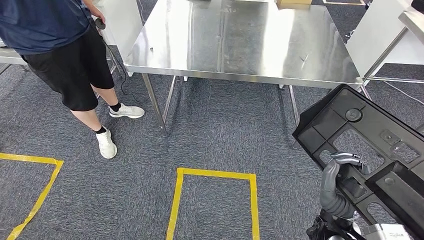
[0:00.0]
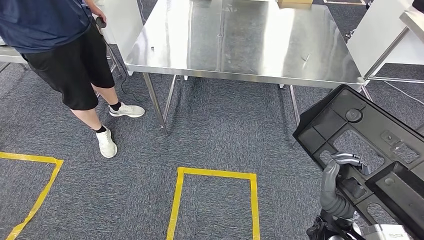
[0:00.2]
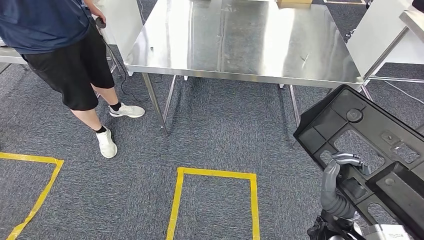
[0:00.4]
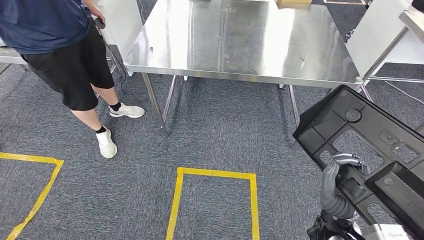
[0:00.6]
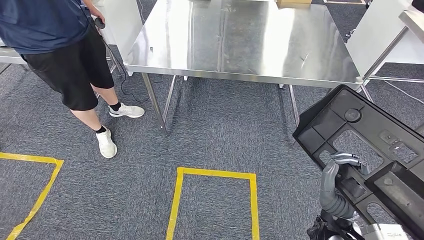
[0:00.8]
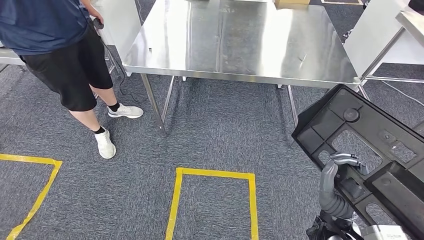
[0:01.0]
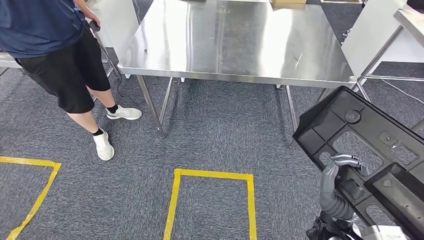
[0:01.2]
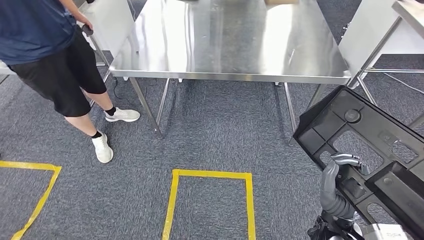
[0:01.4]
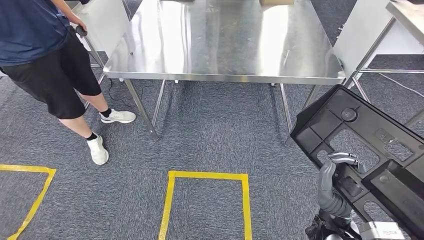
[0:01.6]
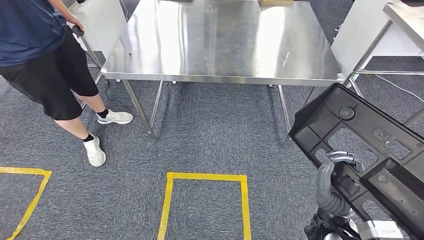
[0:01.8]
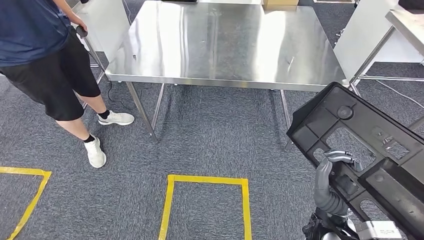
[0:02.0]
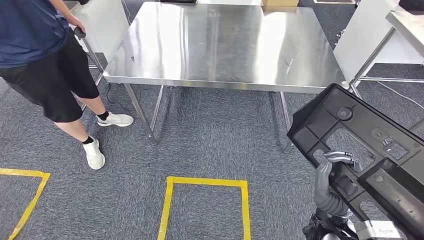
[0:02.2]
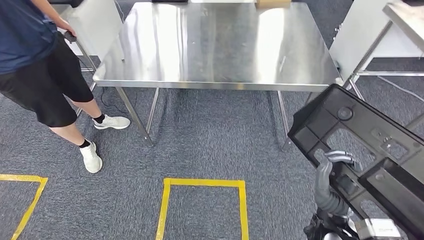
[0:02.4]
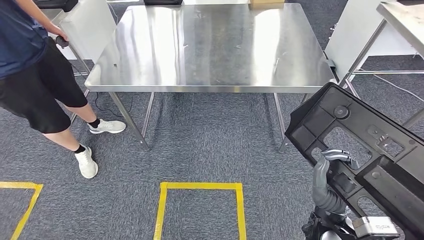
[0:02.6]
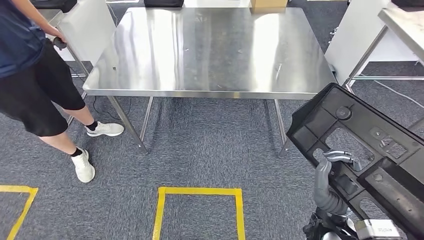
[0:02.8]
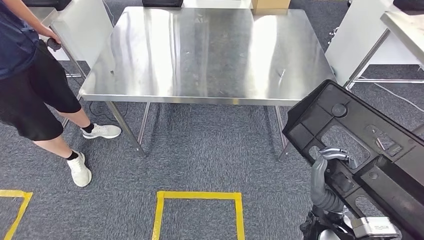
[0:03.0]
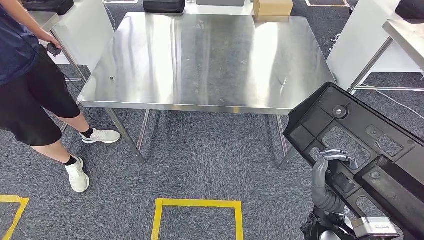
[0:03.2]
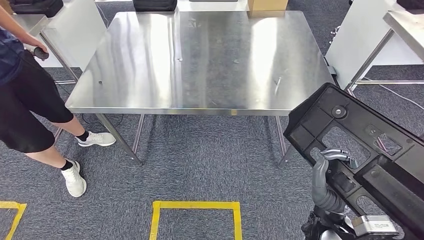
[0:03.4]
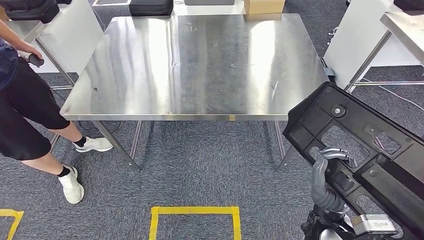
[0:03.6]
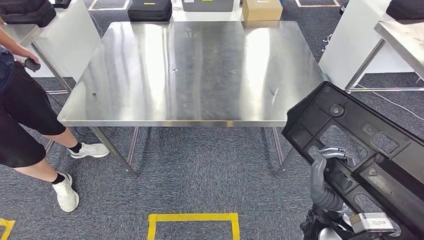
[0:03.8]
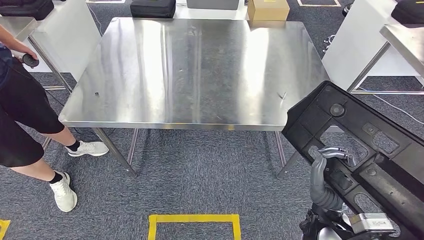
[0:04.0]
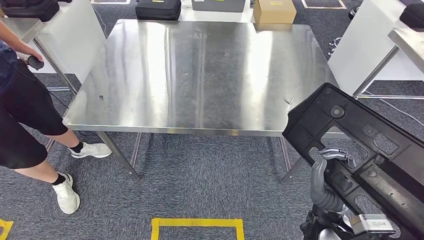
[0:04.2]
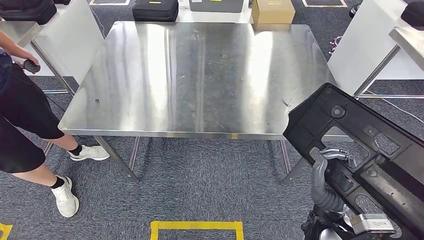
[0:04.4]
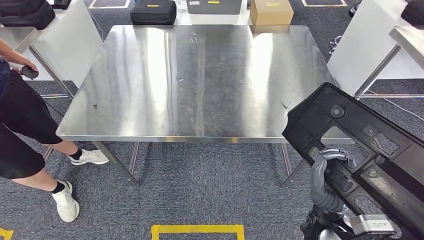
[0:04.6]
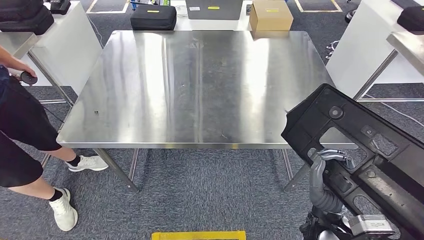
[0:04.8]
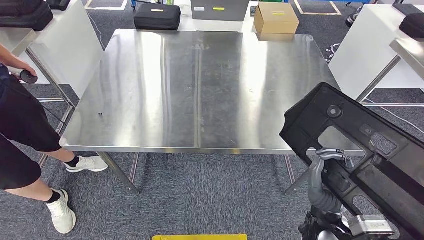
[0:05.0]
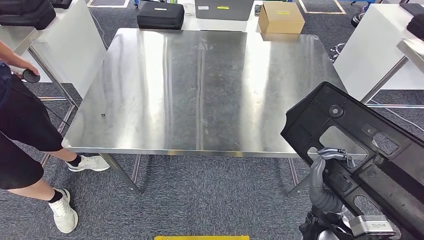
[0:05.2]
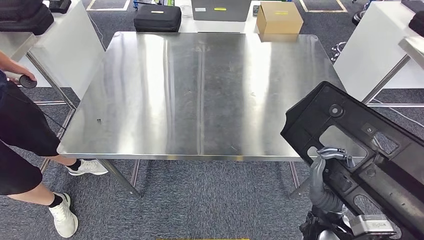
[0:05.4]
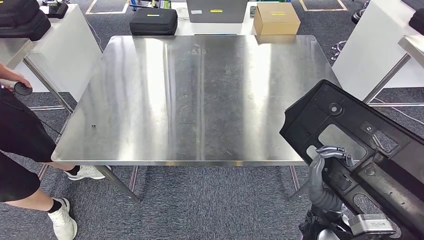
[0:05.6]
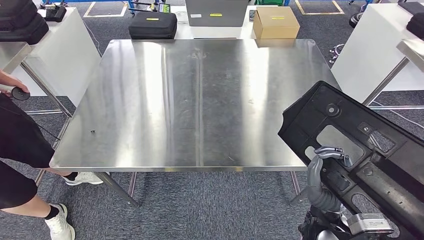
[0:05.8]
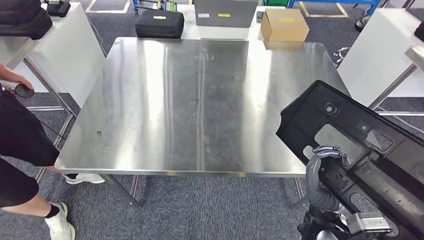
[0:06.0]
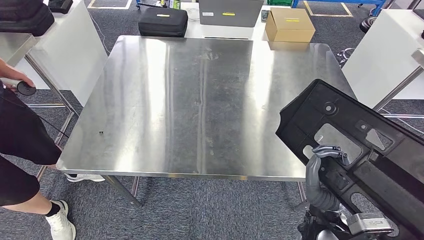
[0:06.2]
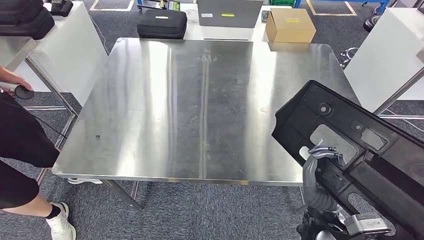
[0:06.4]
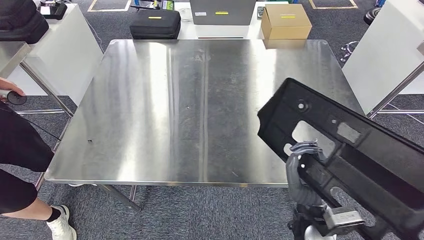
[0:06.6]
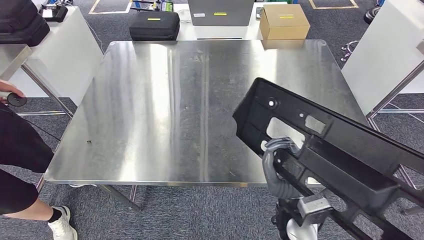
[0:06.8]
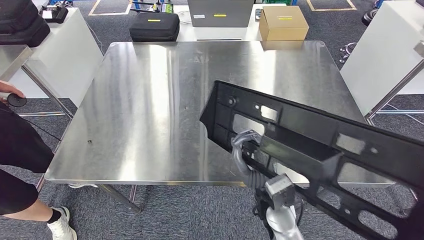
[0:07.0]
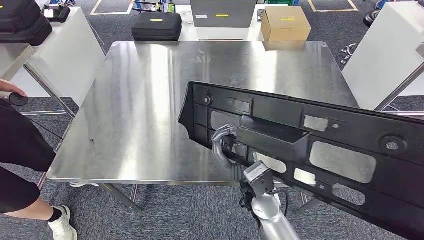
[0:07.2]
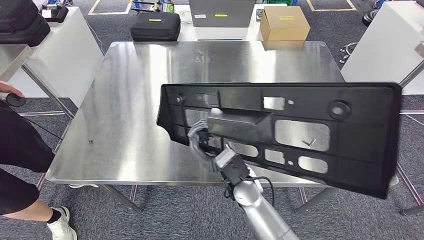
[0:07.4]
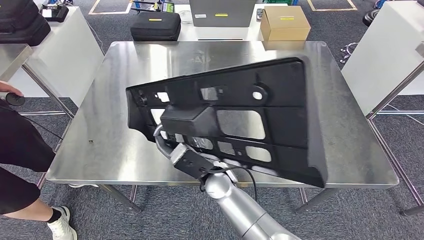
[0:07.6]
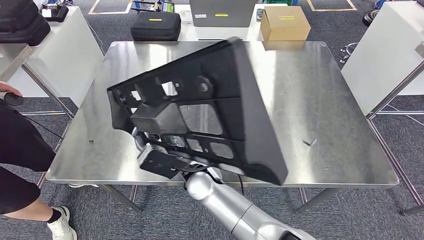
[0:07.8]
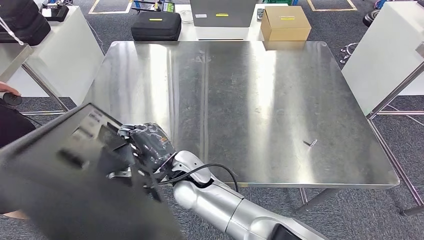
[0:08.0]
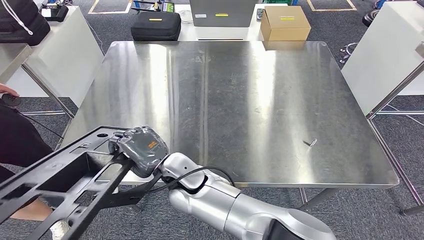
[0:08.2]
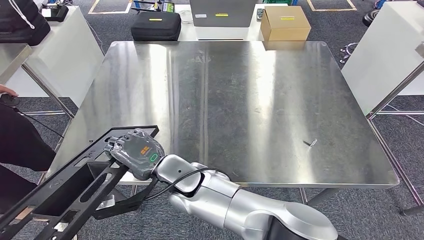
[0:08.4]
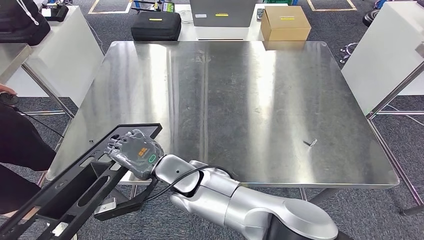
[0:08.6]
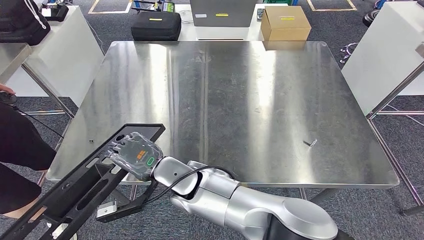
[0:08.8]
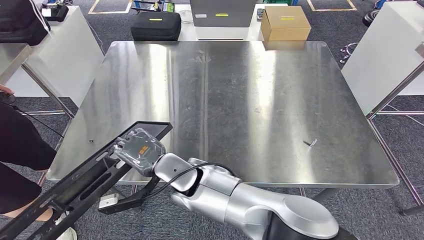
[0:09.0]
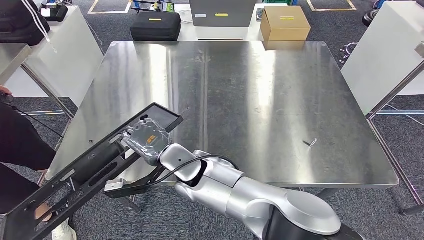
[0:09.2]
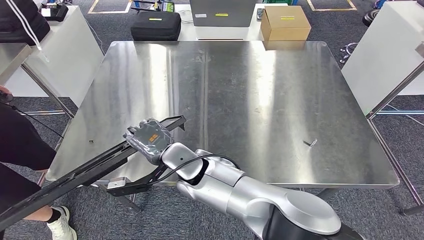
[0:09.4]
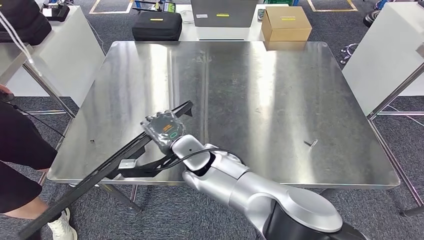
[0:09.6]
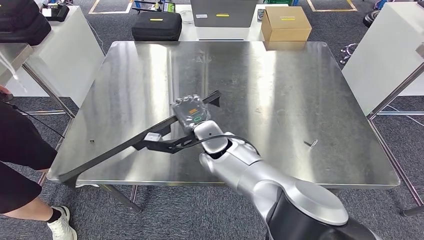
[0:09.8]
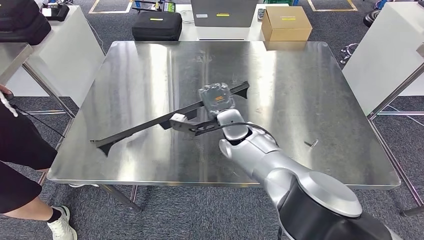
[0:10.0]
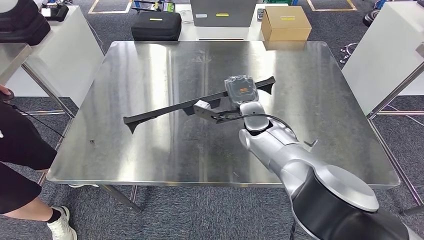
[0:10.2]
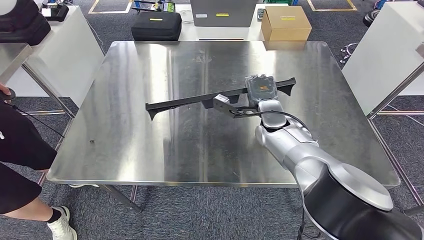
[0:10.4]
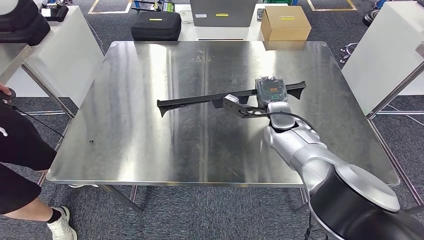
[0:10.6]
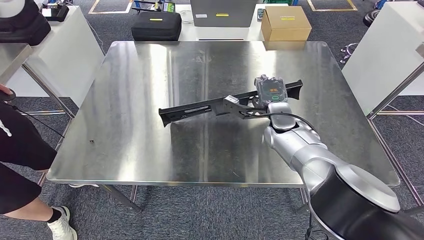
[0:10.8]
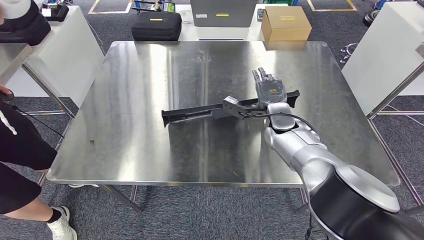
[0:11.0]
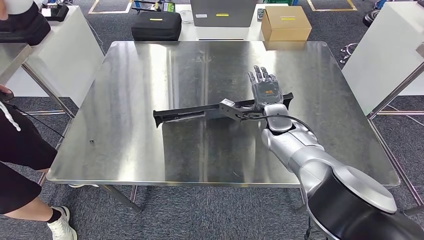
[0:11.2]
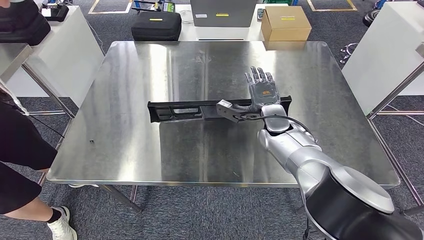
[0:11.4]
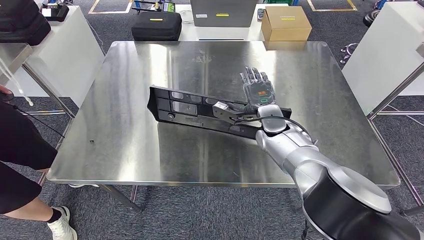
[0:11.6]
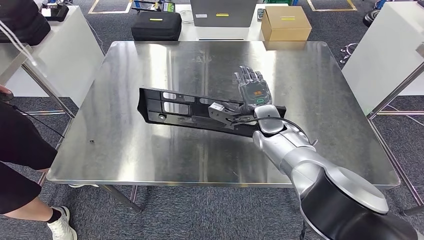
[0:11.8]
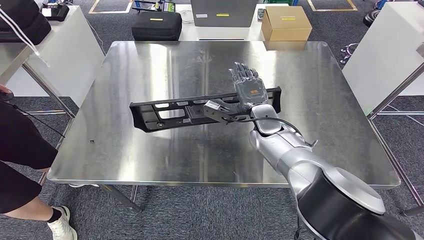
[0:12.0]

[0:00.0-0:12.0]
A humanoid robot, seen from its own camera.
0:10.4 to 0:12.0: The hands stay close to where they were, moving slightly.

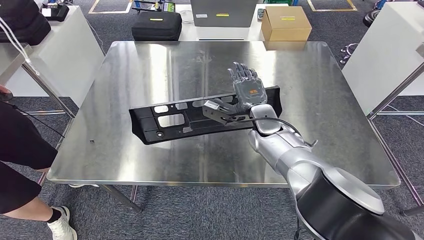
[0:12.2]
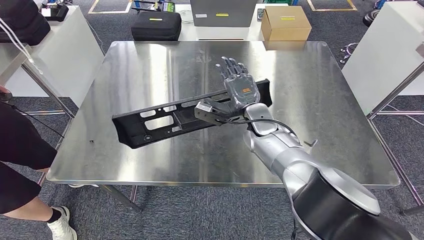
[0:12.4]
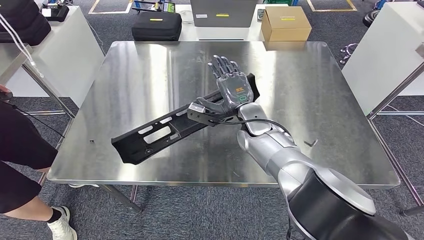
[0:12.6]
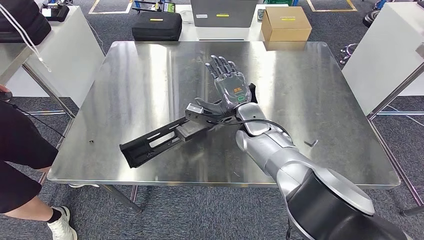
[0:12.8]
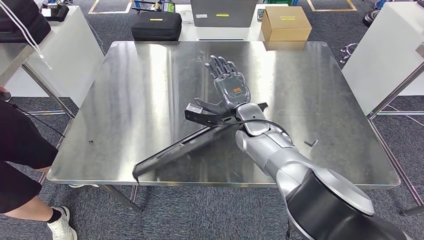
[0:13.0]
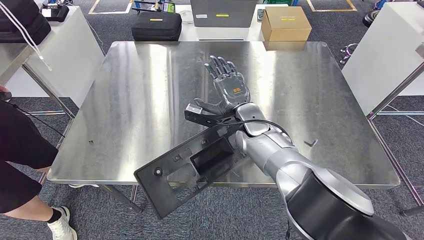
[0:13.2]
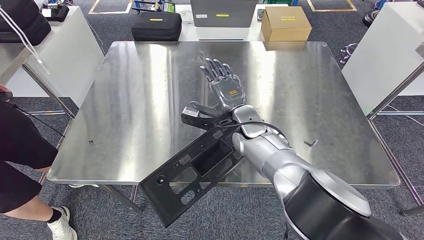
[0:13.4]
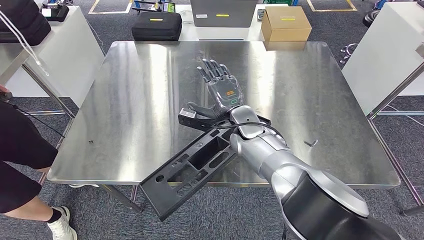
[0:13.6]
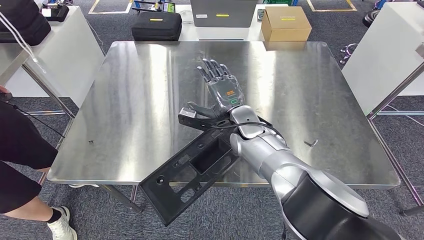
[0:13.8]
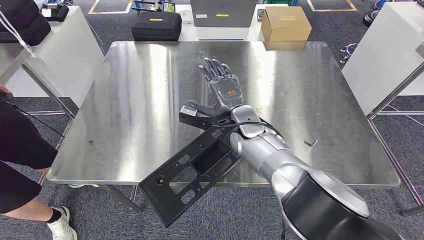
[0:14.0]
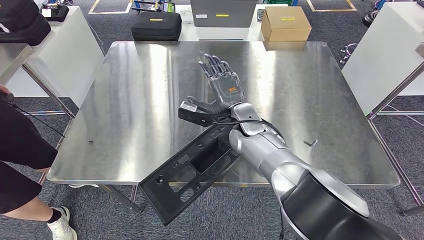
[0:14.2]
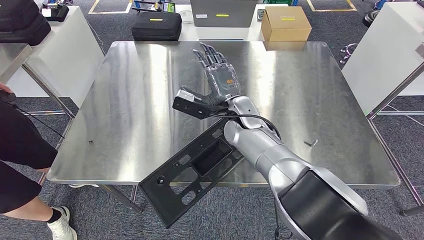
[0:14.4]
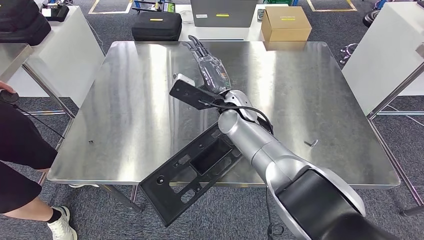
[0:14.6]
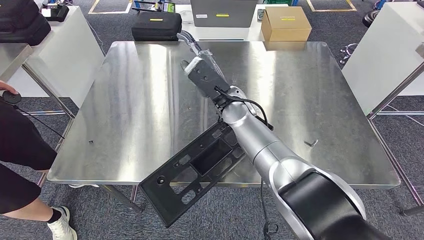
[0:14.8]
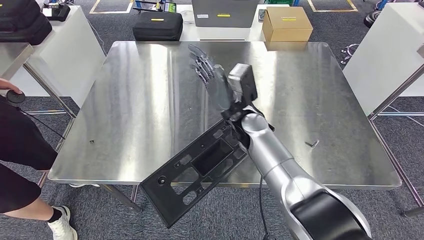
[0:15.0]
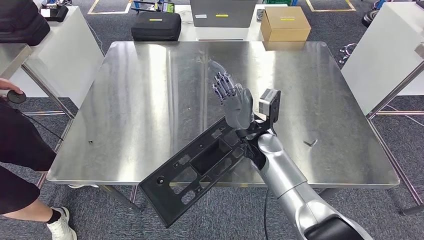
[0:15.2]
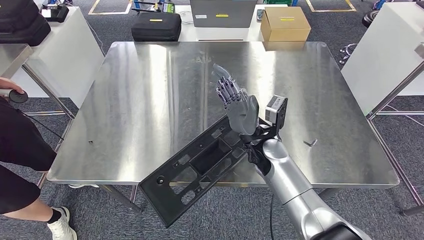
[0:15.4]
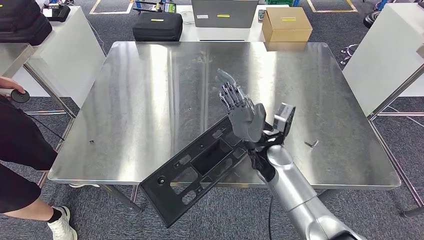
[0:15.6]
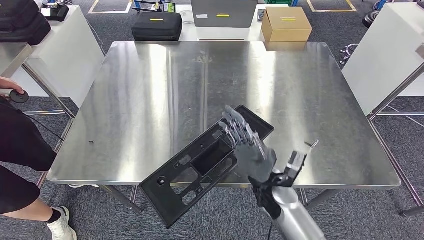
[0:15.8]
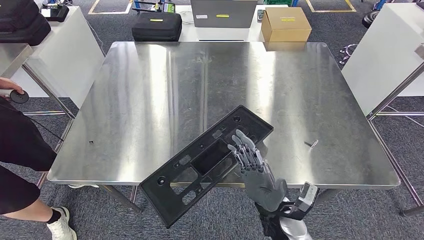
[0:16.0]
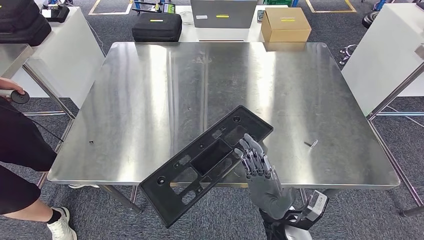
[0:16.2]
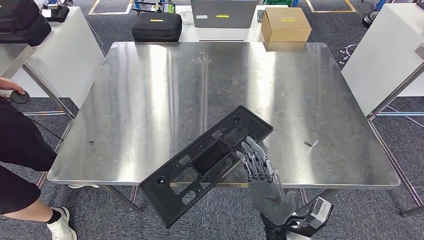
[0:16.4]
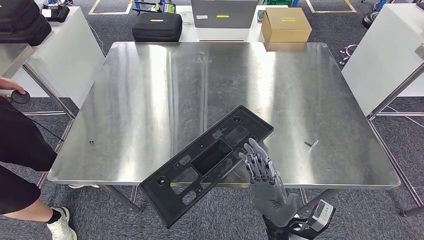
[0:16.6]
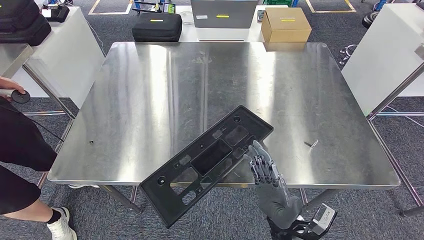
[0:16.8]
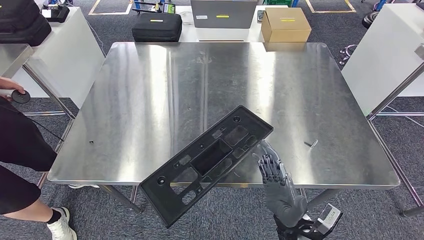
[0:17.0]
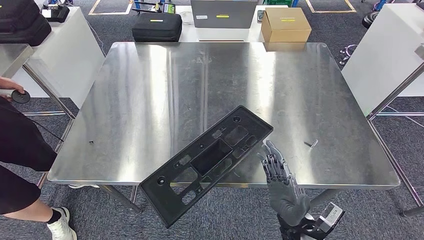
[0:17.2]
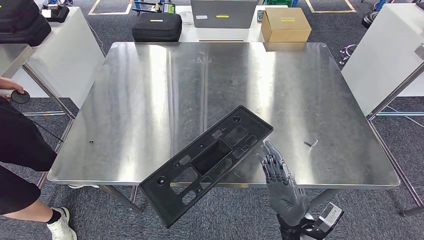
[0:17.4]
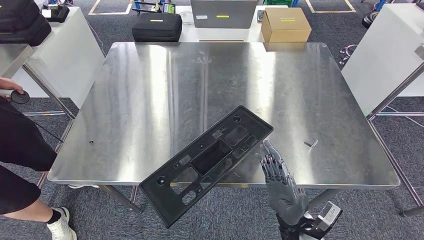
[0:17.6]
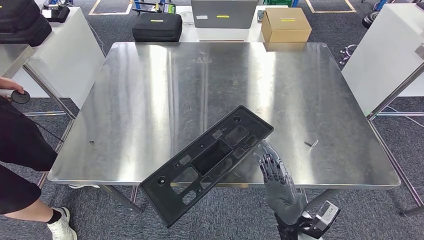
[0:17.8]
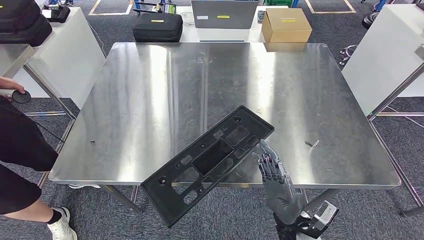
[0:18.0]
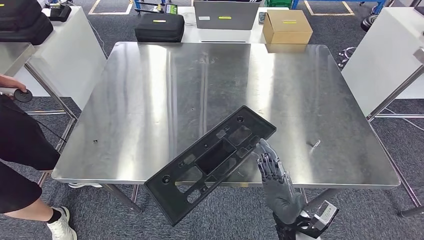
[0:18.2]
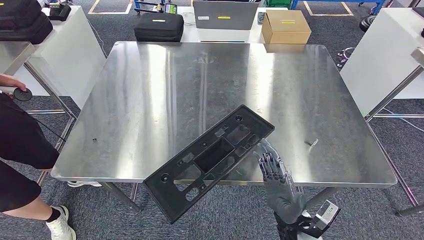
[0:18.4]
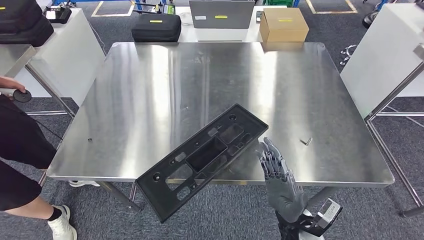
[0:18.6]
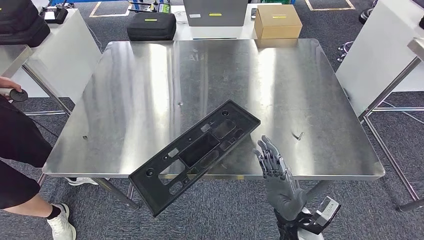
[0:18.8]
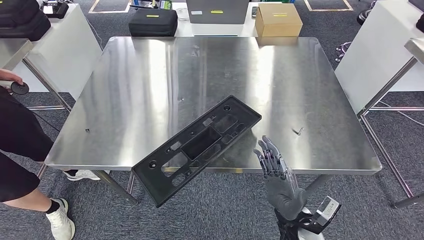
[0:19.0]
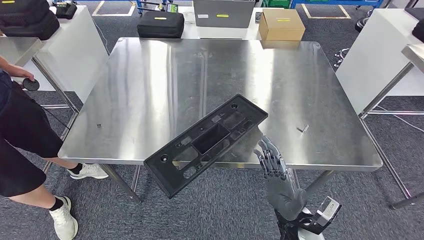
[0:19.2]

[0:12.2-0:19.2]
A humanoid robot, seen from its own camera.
Step, 0:12.2 to 0:18.4: Insert the large material into the corresponding slot on the workbench.
0:12.2 to 0:13.6: The right hand heads to the left, covering approximately 5 cm.
0:15.0 to 0:16.4: The right hand is displaced backward and downward by roughly 25 cm.
0:16.4 to 0:17.8: There are only small adjustments of the hands.
